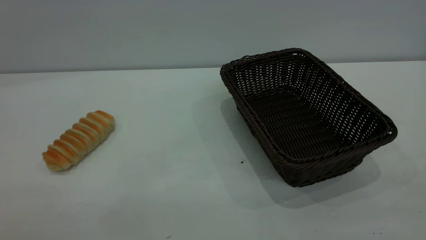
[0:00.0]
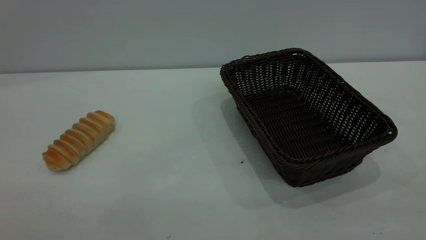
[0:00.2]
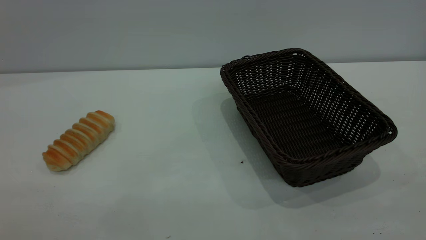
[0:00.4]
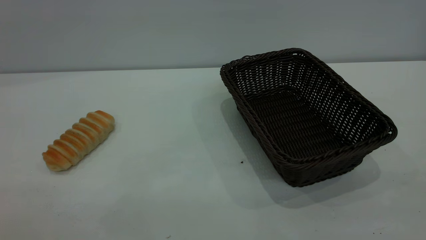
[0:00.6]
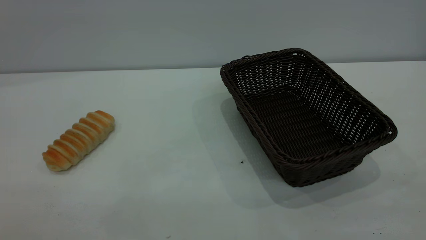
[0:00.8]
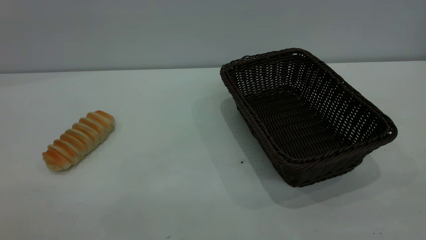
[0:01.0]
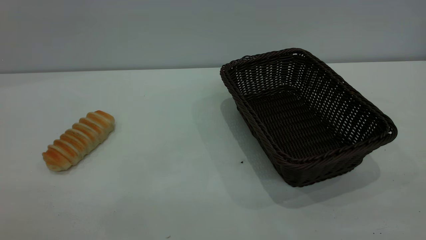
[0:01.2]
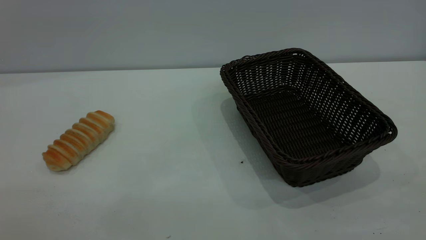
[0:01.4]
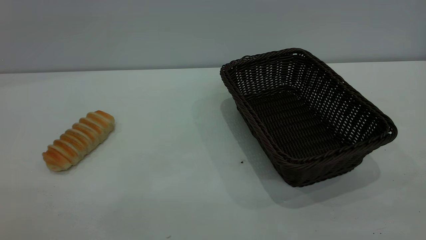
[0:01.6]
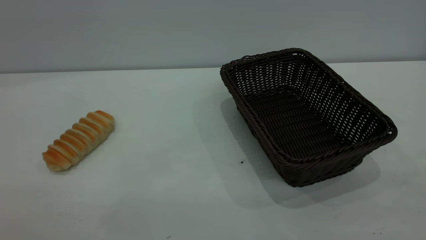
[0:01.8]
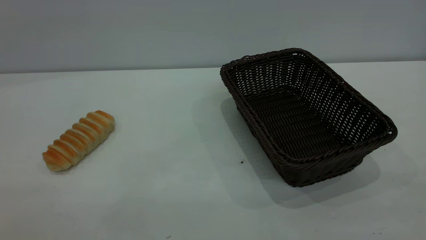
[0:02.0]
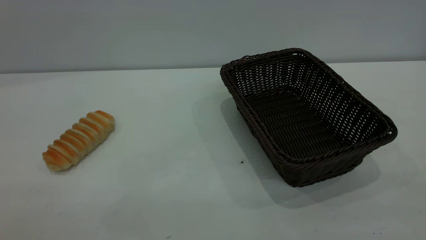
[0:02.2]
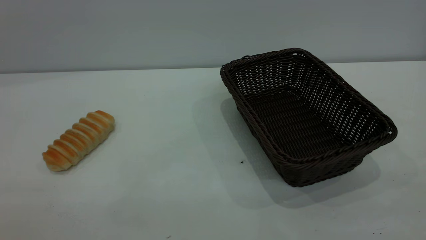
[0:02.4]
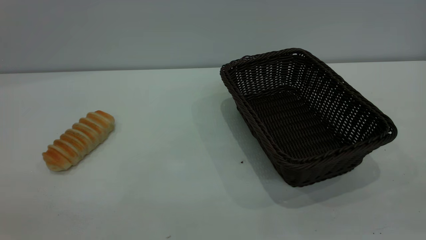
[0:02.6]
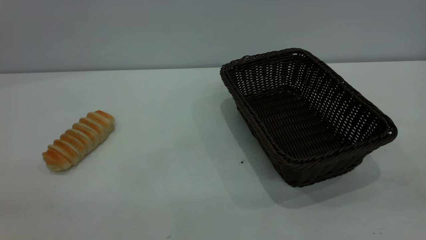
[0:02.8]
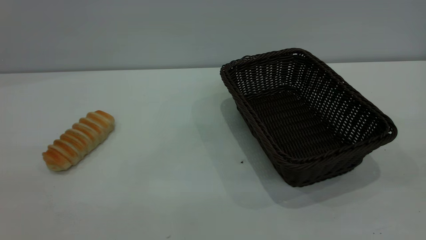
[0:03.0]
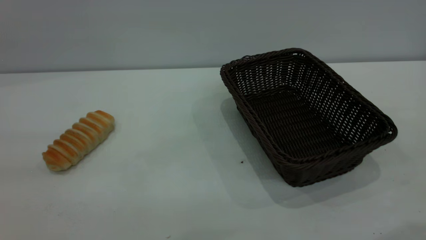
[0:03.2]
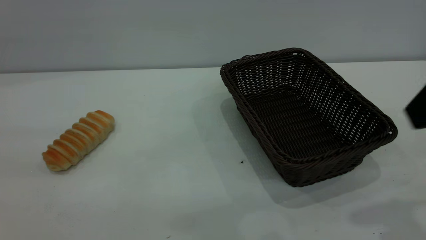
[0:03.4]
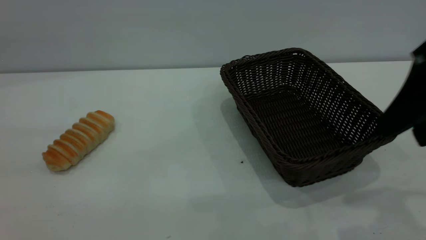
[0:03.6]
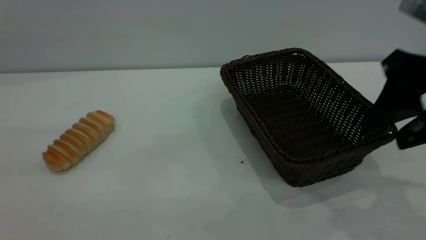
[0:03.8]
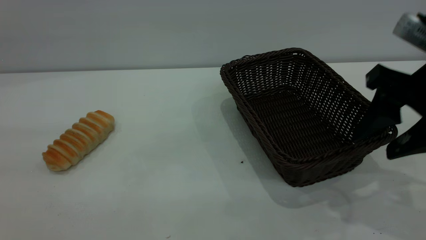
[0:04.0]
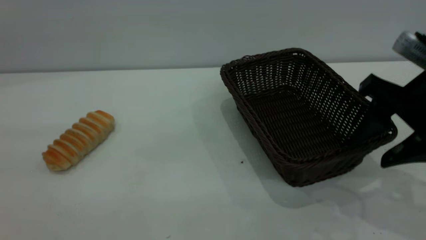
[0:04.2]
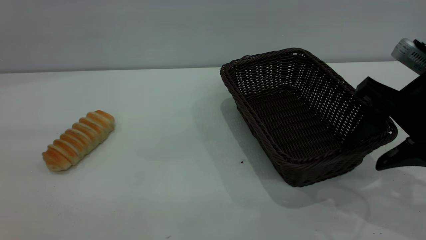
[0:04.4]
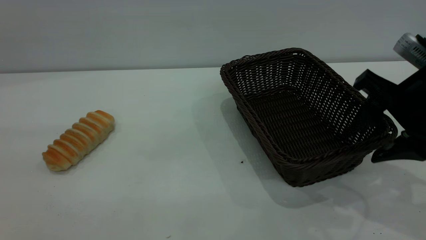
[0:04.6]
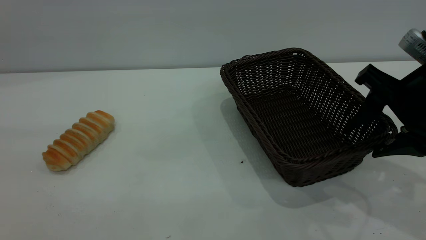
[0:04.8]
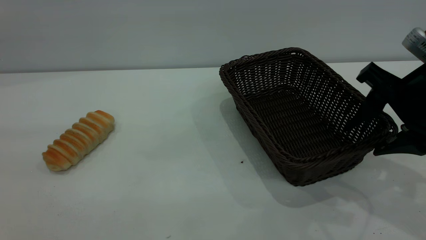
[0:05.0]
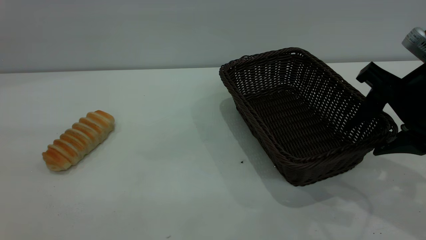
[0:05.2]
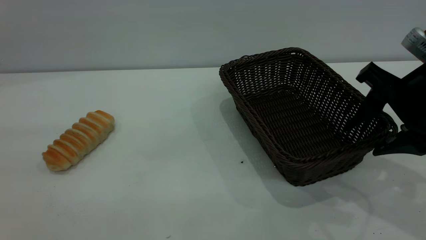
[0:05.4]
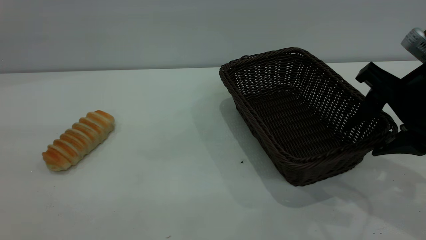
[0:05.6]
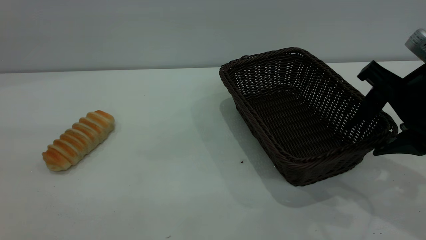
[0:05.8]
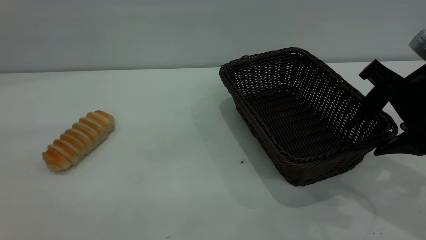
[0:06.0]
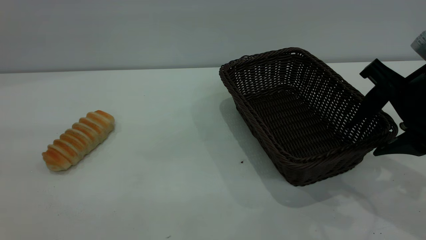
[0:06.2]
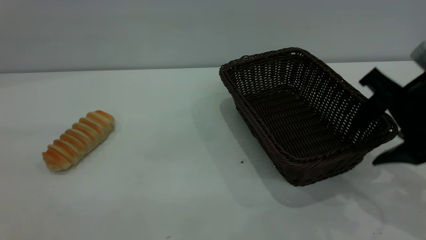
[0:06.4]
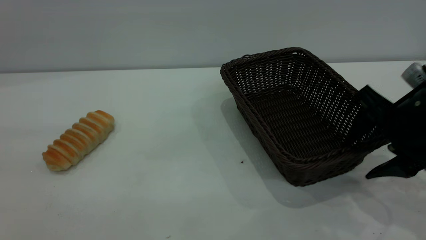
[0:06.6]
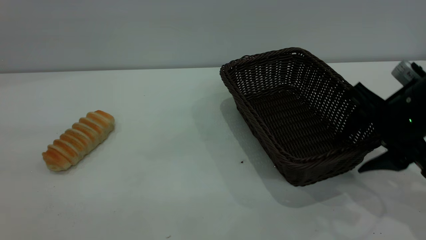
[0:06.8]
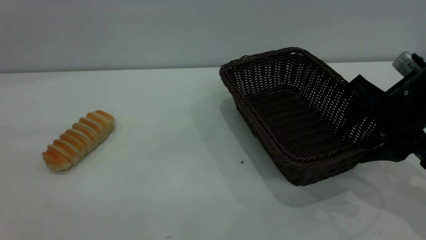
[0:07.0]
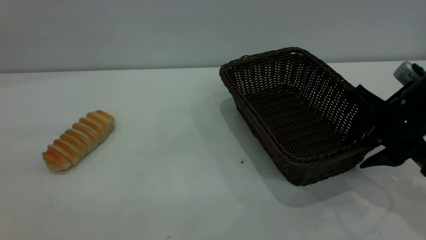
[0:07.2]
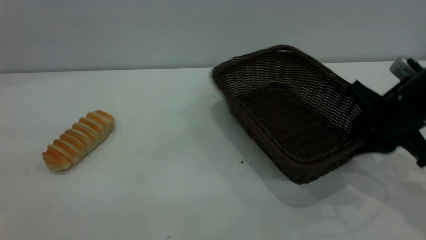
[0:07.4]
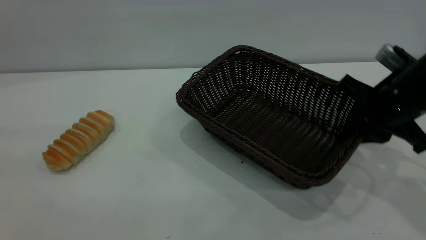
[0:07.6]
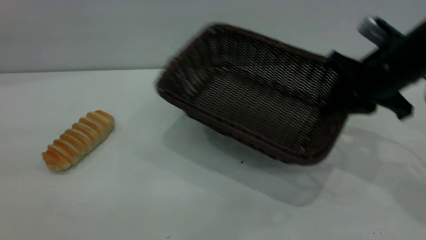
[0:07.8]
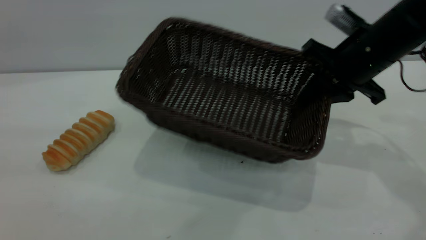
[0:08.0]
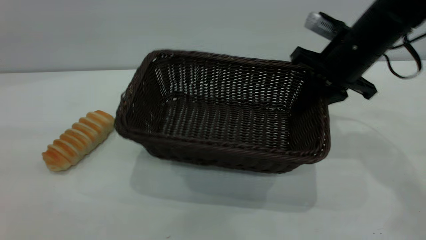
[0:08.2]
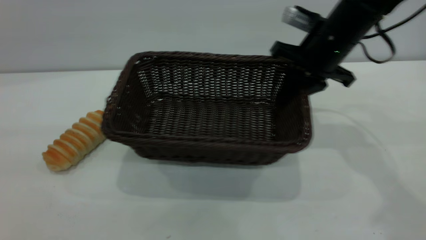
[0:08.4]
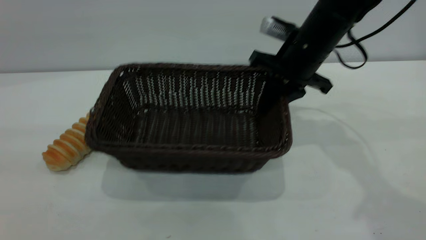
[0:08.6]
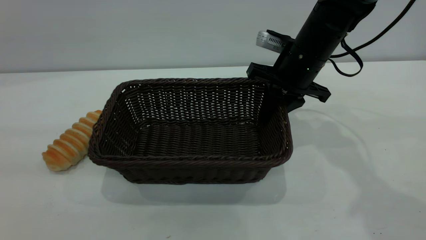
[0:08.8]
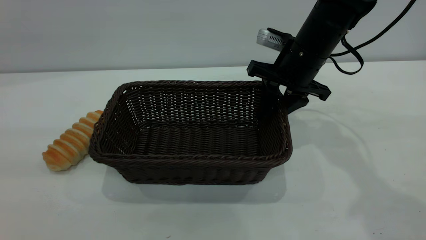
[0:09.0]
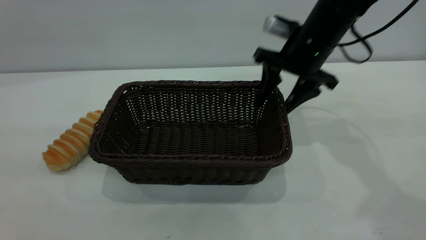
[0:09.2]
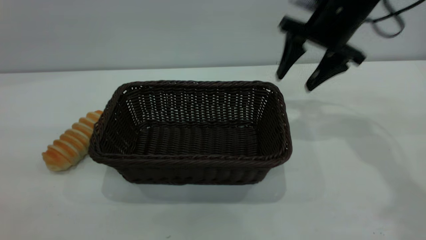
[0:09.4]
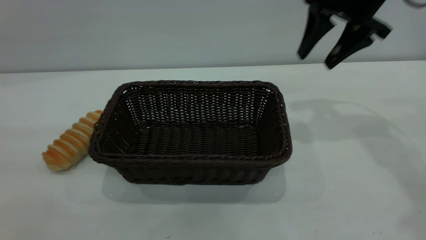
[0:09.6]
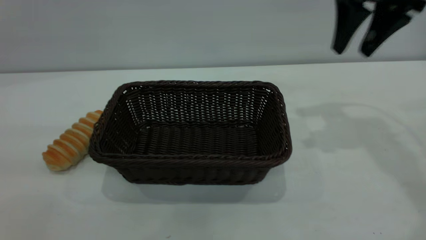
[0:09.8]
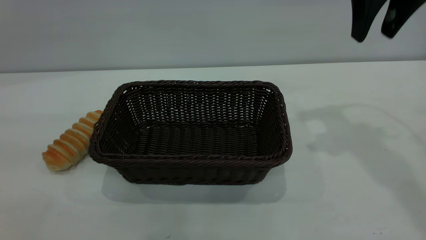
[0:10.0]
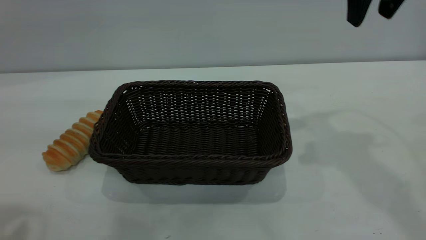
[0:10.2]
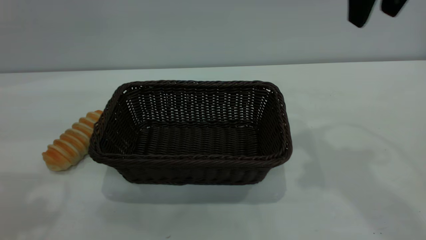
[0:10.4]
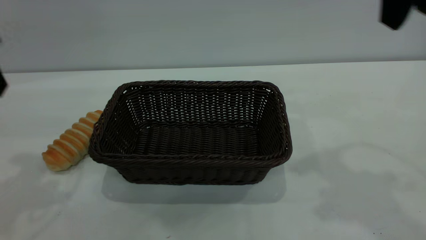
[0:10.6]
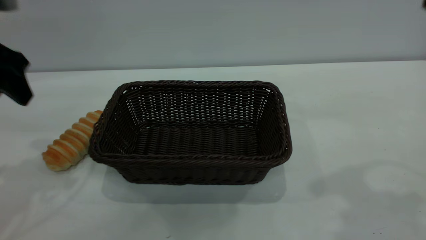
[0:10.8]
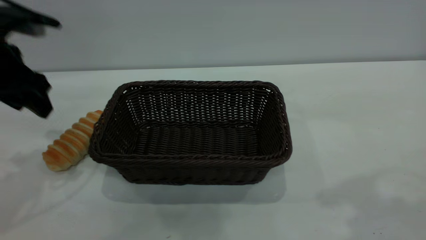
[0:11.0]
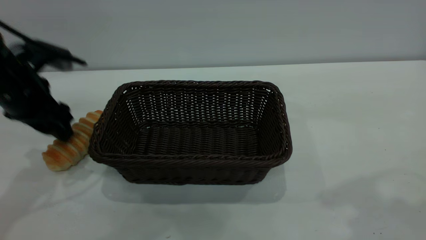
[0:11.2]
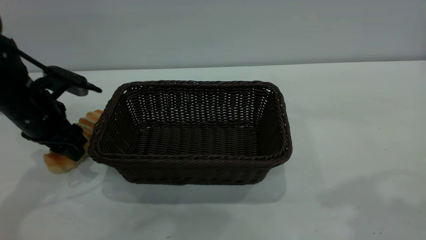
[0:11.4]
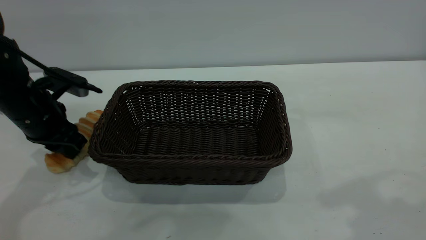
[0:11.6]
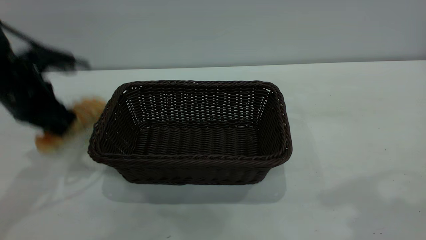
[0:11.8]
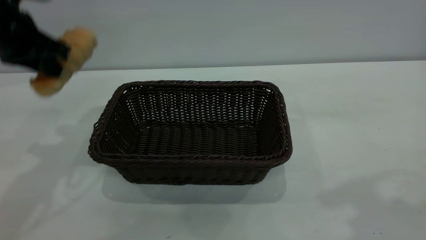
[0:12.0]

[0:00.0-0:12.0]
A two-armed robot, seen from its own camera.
Task of the whole recording: One hand grasps the black basket and places it in the middle of the table, while the other hand picks up the long bread and puts it into the black basket.
Step, 0:00.0 to 0:09.4: Move the basket to the center of view.
0:00.0 to 0:01.6: Both grippers stay about where they are.
0:03.0 to 0:04.4: The right gripper moves downward and forward, approximately 25 cm.
0:04.4 to 0:06.0: The grippers move only a little.
0:06.0 to 0:07.6: The right gripper goes about 5 cm forward, and closes up.
0:07.6 to 0:09.0: The right gripper goes about 15 cm forward and to the left, and opens up.
0:09.0 to 0:10.4: The left gripper is displaced forward by roughly 15 cm. The right gripper is displaced upward and backward by roughly 25 cm.
0:10.4 to 0:12.0: The left gripper moves forward, about 10 cm, goes downward and returns, some 20 cm each way, and closes up. Meanwhile the right gripper travels backward and upward by approximately 10 cm.

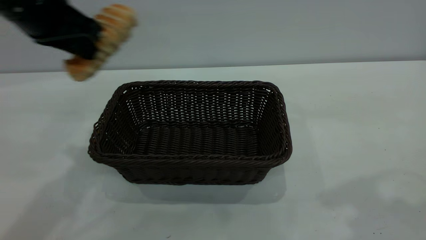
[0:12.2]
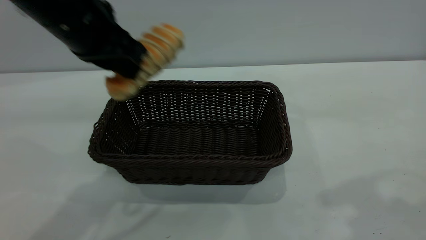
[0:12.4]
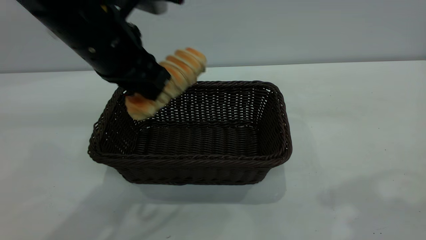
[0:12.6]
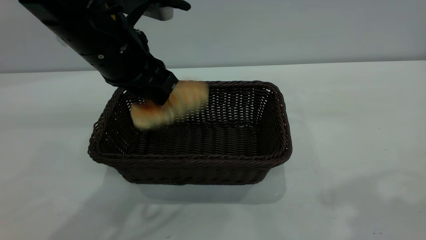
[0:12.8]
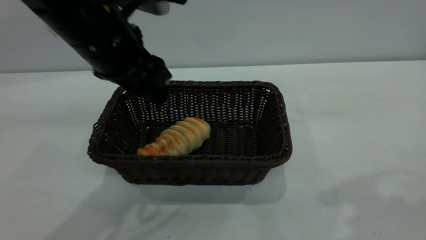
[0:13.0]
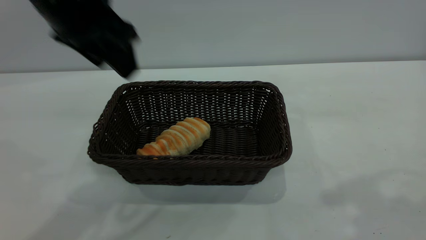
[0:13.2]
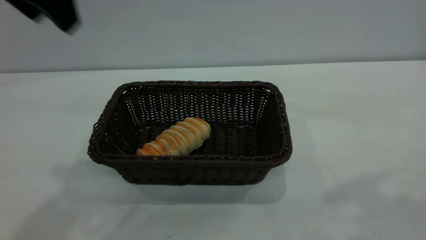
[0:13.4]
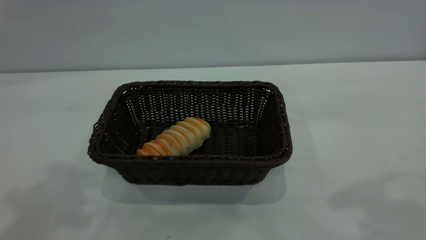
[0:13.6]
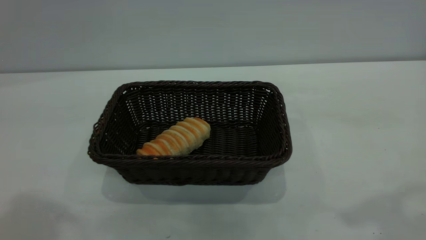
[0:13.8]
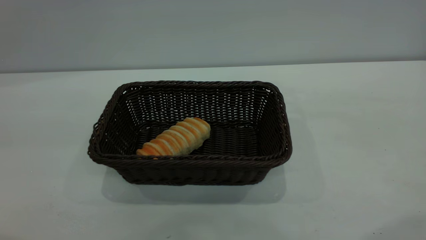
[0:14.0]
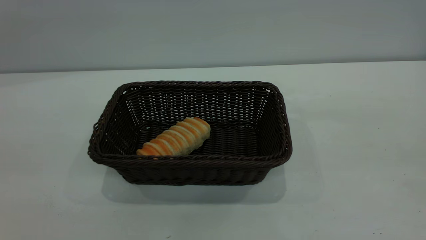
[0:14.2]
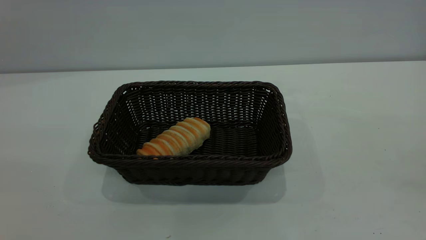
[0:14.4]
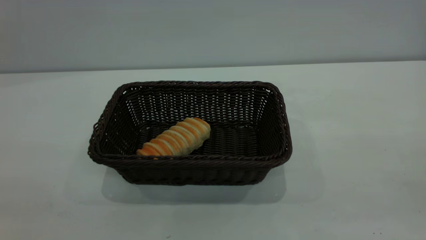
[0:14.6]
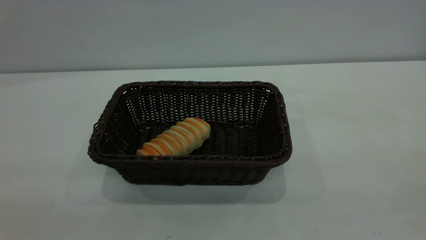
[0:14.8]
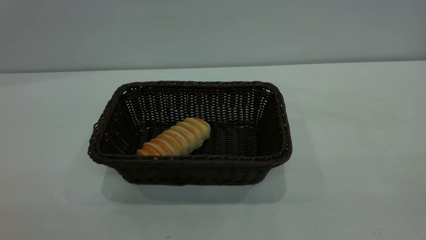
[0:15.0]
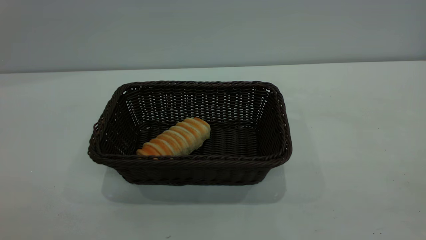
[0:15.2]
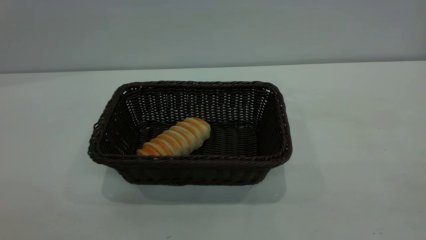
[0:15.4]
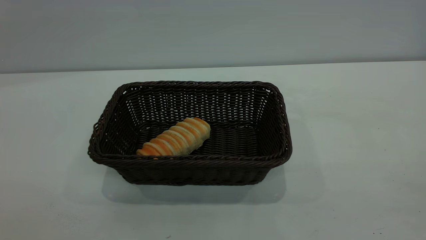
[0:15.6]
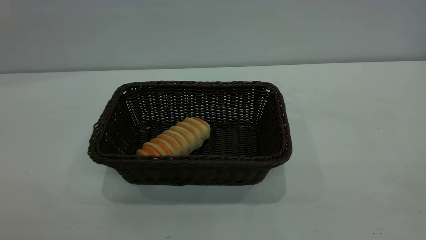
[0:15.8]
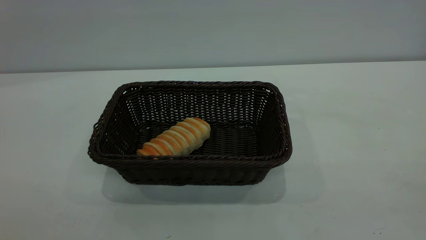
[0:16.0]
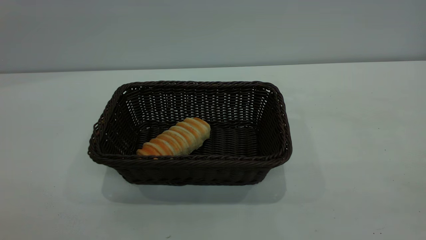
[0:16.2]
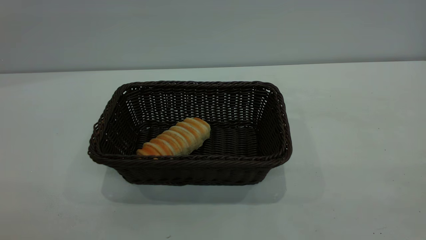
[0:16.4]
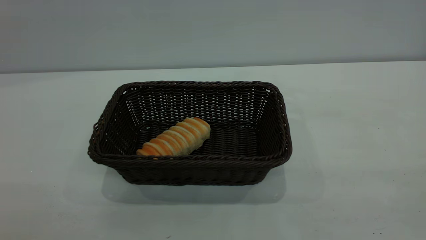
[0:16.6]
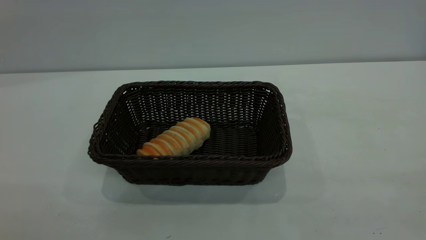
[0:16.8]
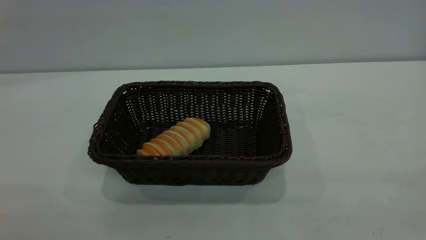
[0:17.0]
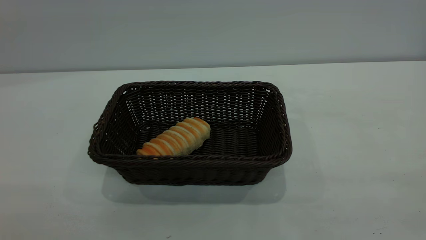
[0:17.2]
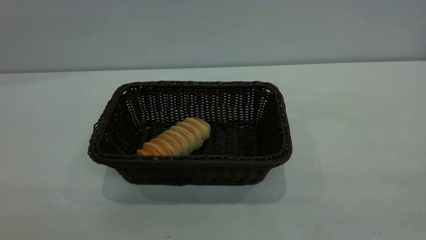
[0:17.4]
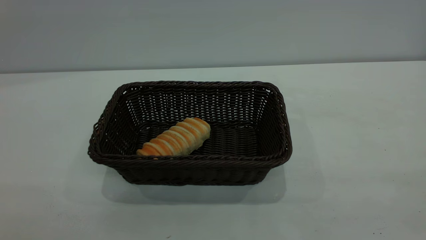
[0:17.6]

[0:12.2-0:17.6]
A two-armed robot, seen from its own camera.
Task of the whole recording: One hand grasps the black basket and places it in the middle of the table, while the other hand picks up the long bread and puts it into the black basket.
Step, 0:12.2 to 0:13.2: place the bread into the basket.
0:12.2 to 0:13.6: The left gripper travels upward and backward by about 20 cm, and opens its fingers.
0:15.0 to 0:16.2: The two grippers keep their place.
